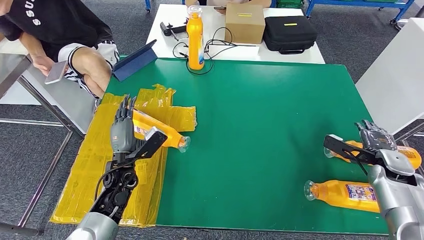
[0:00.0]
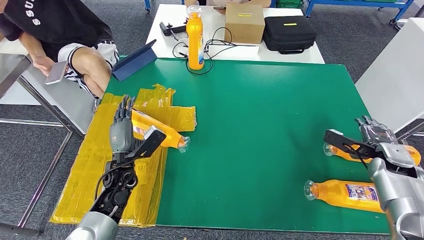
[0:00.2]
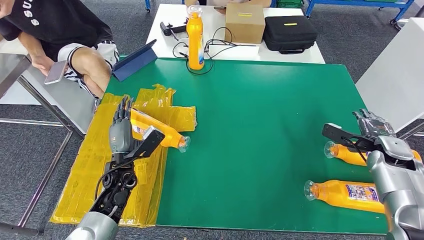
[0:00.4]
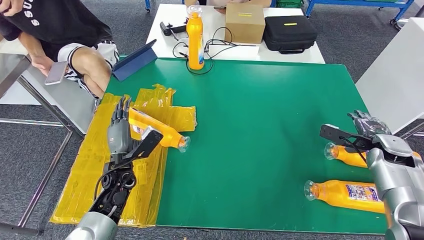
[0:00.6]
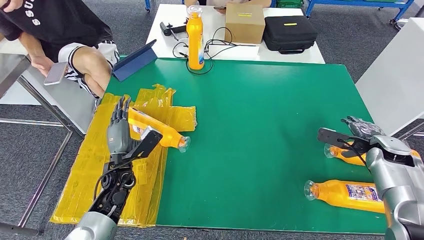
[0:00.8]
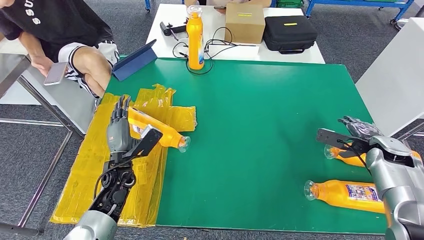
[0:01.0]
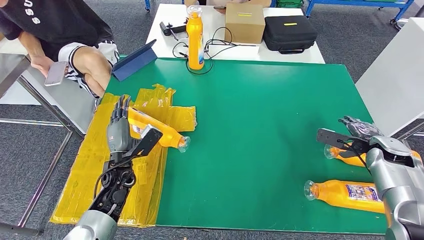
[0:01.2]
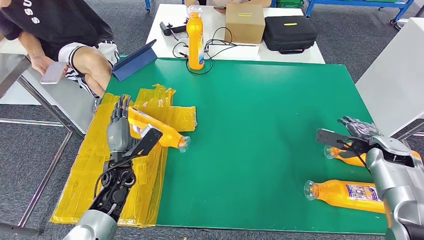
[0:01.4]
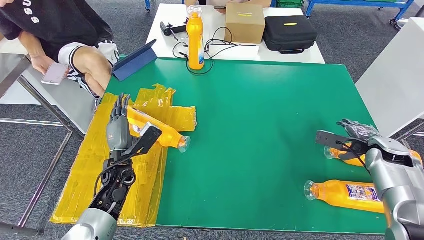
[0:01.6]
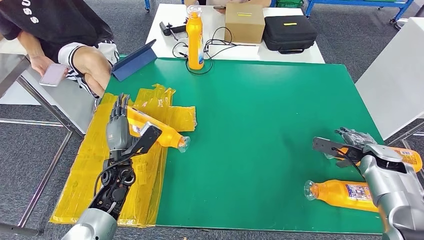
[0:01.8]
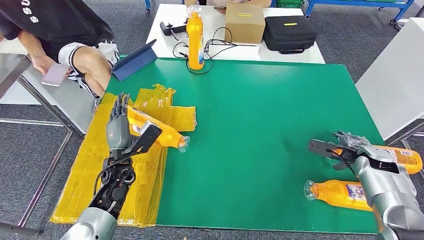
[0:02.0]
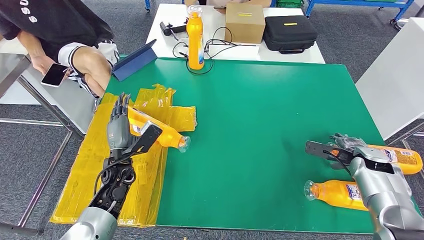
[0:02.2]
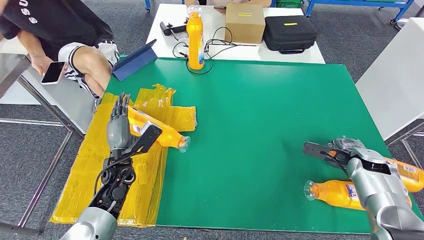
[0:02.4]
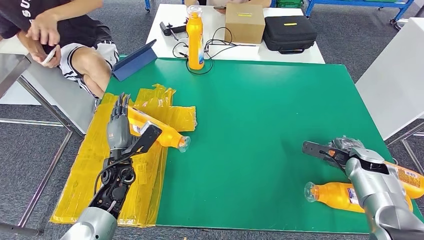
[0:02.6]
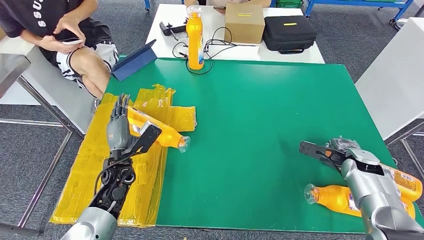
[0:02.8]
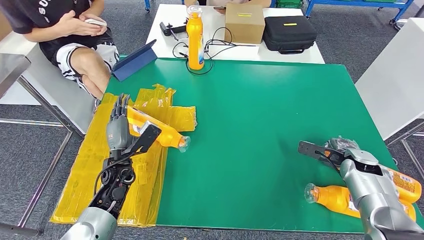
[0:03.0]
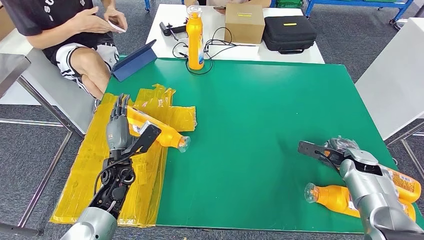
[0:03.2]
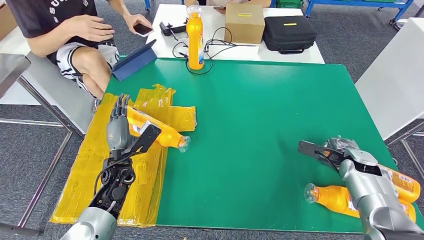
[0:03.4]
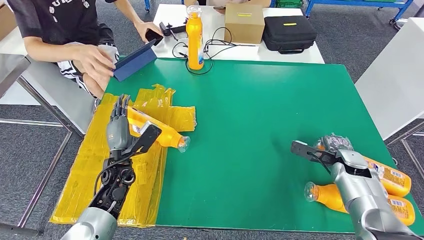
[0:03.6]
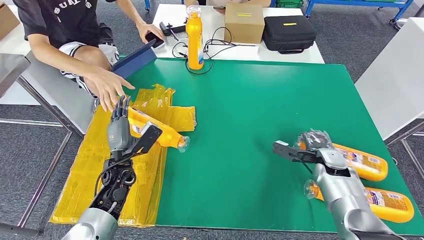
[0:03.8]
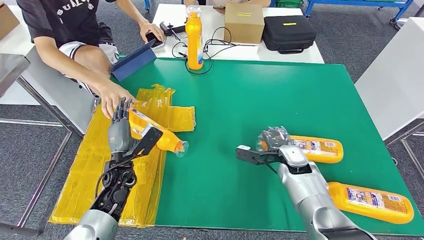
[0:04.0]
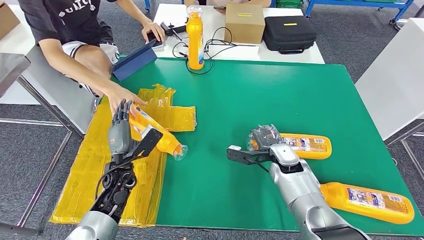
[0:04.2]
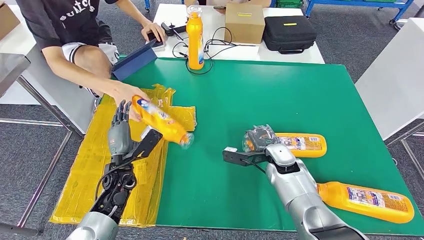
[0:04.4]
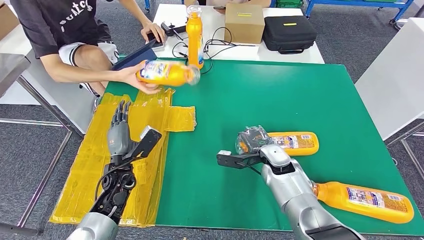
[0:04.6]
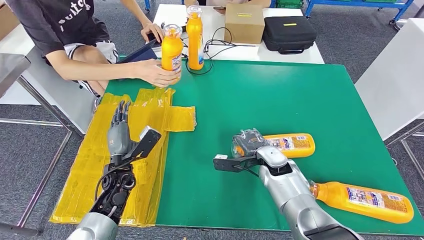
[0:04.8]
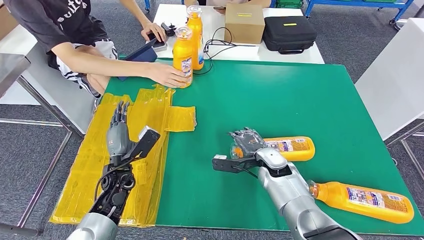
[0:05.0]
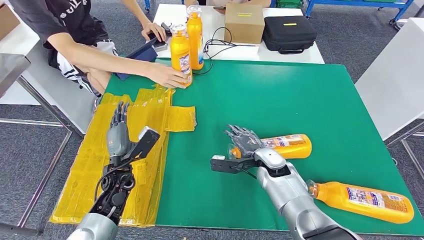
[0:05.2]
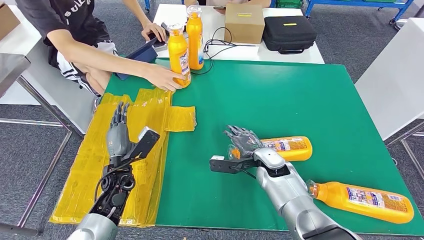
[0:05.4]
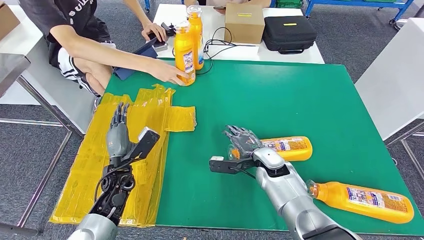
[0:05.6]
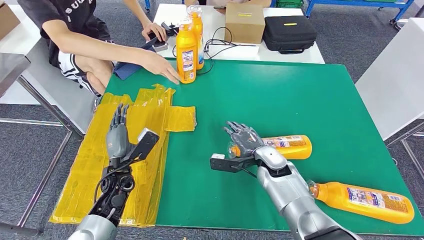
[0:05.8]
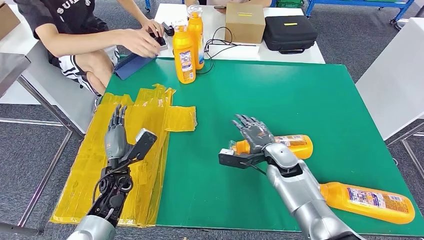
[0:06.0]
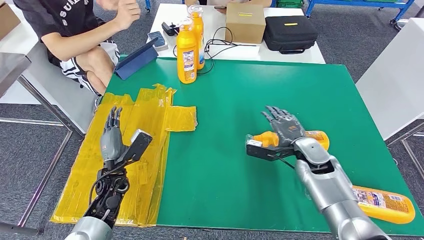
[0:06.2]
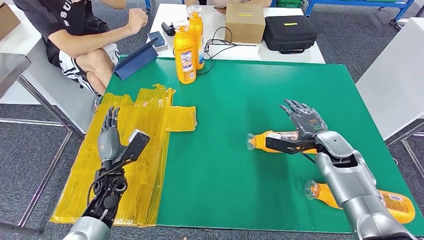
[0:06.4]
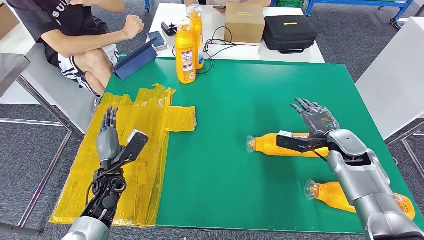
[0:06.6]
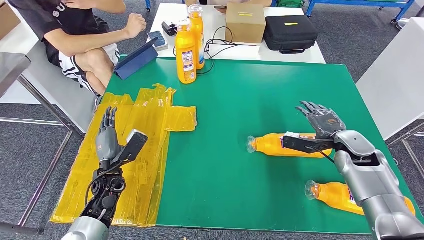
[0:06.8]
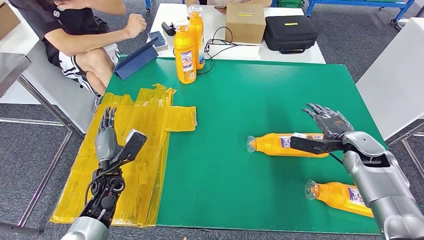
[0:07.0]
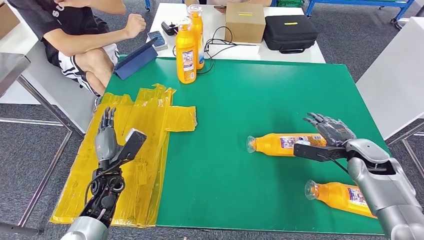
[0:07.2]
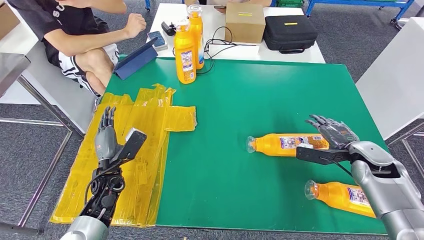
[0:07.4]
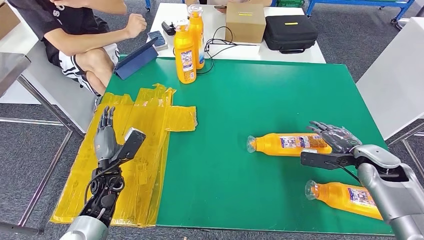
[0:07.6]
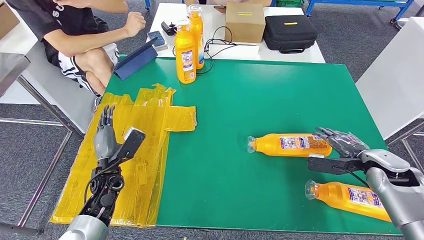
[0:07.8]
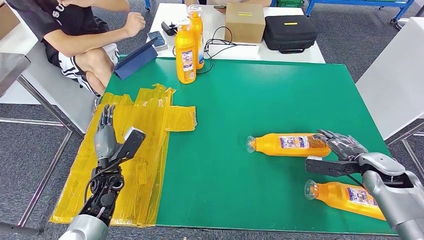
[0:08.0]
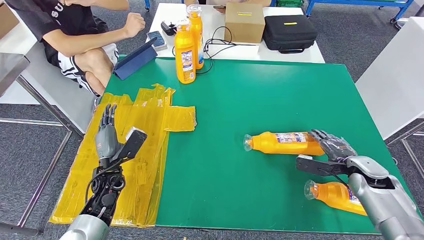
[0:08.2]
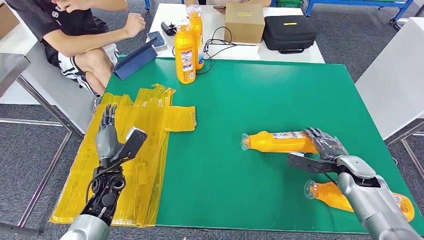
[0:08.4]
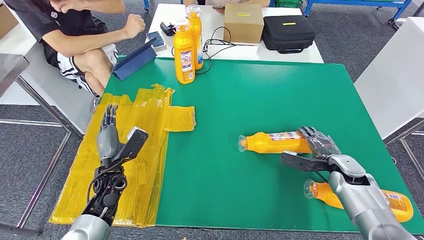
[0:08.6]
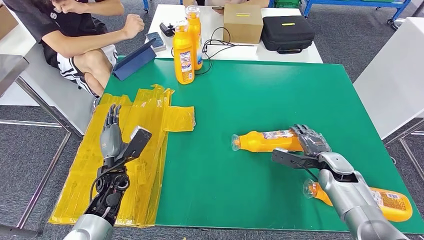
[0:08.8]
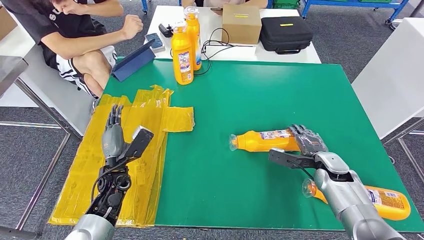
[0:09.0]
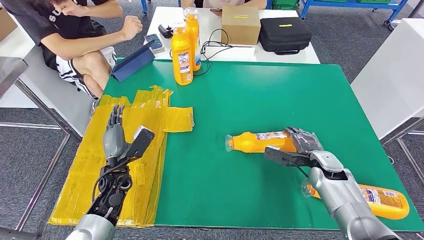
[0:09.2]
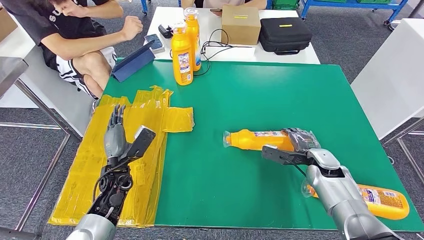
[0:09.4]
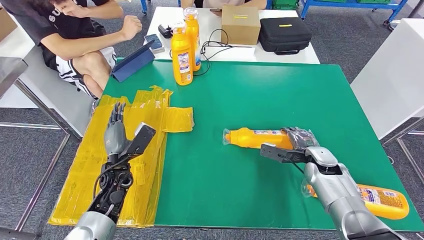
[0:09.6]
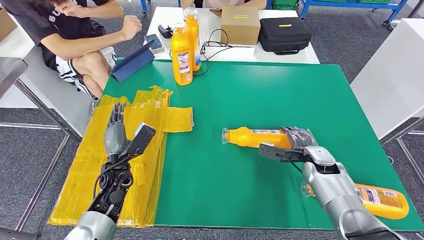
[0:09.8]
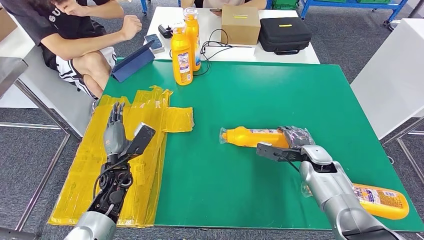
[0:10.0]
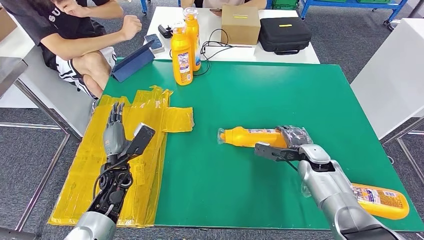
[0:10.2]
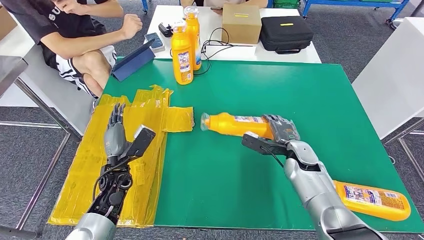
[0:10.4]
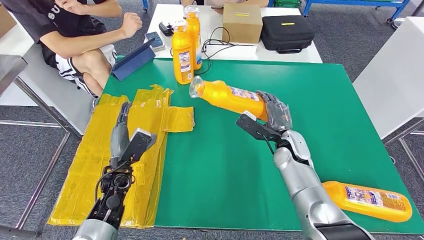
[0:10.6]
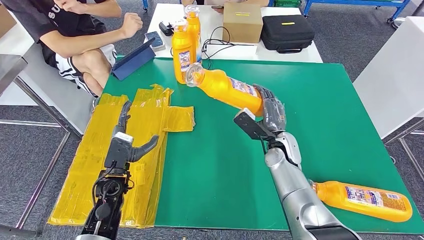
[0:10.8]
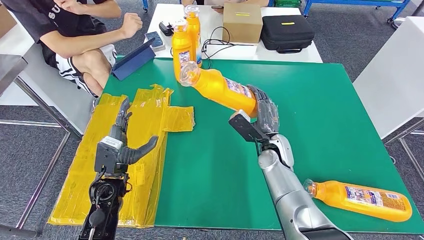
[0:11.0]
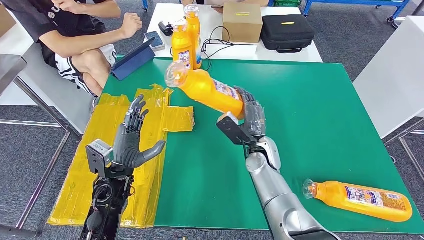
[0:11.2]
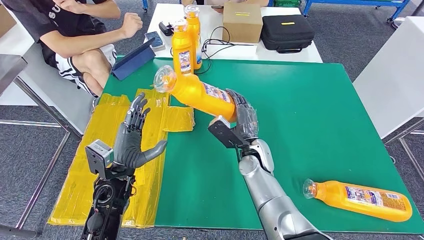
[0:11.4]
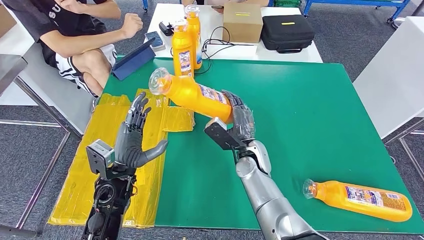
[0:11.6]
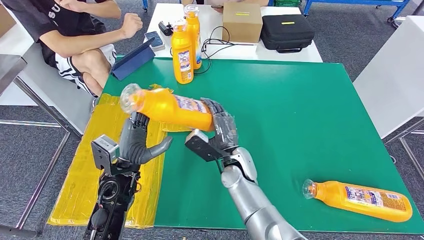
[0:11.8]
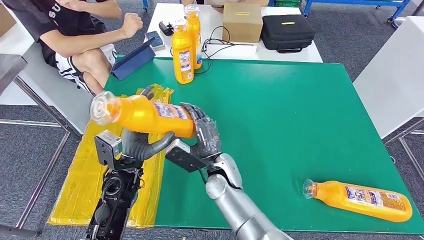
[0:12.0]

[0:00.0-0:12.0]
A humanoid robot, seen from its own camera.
Step, 0:07.0 to 0:11.0: Pick up the fast-moving consumer goods bottle from the table.
0:00.0 to 0:01.6: The hands make only small movements.
0:01.6 to 0:03.0: The right hand moves to the left, about 5 cm.
0:04.4 to 0:06.0: The hands make only small movements.
0:09.0 to 0:10.4: The right hand travels to the left by roughly 10 cm.

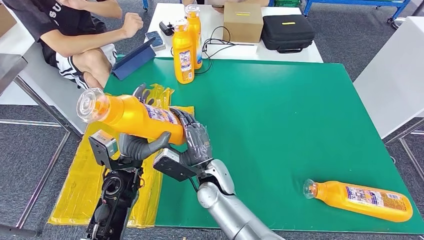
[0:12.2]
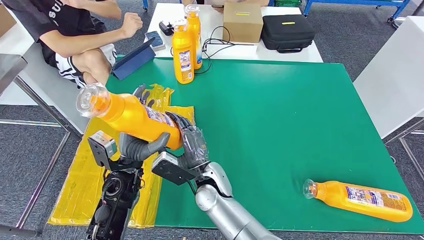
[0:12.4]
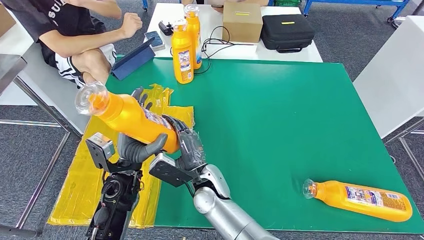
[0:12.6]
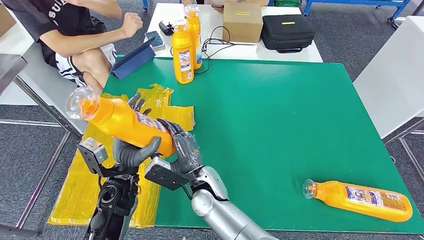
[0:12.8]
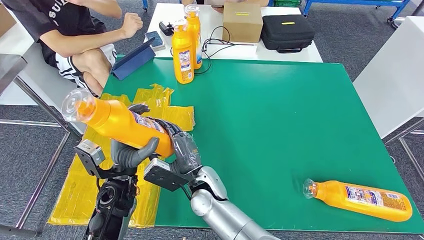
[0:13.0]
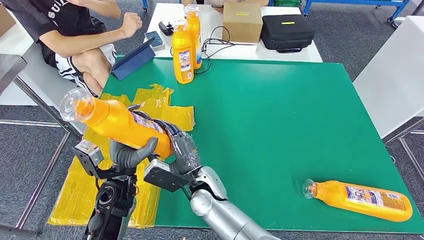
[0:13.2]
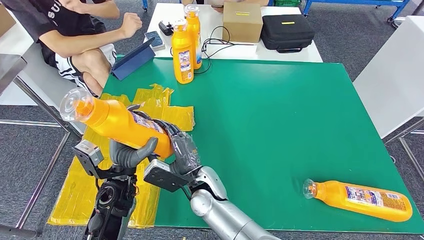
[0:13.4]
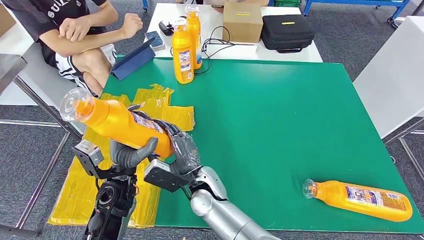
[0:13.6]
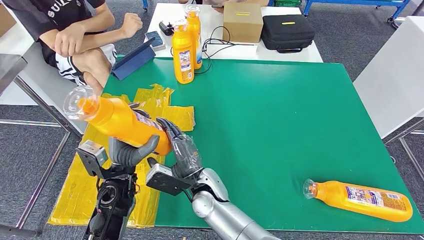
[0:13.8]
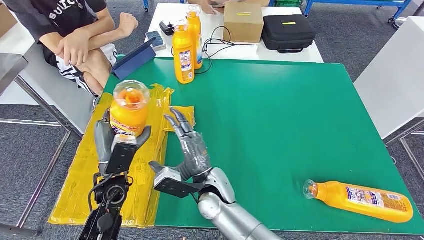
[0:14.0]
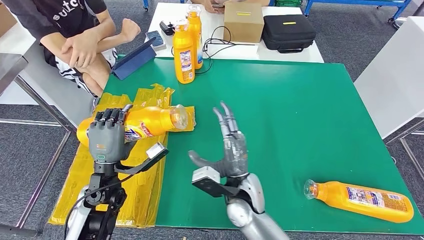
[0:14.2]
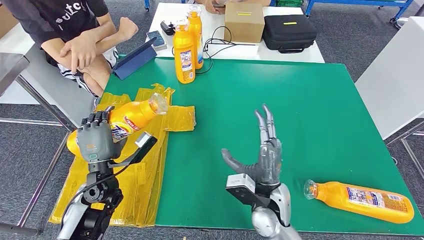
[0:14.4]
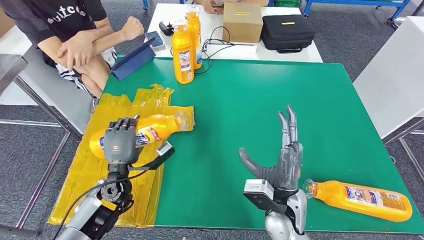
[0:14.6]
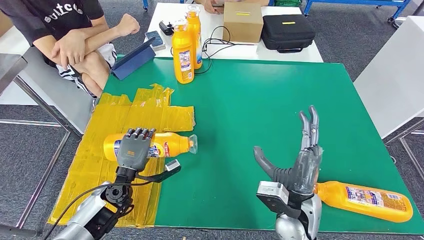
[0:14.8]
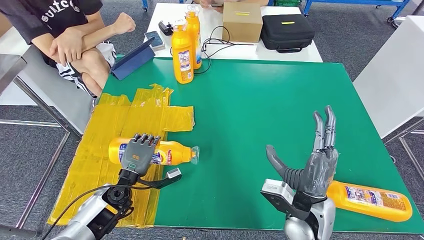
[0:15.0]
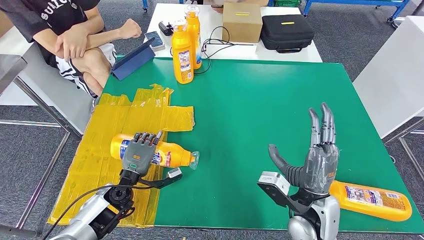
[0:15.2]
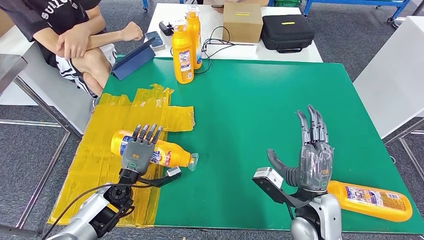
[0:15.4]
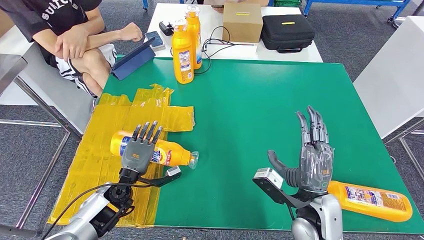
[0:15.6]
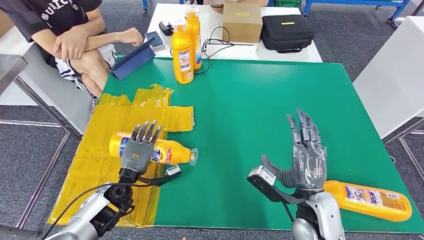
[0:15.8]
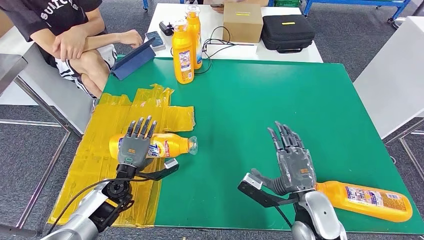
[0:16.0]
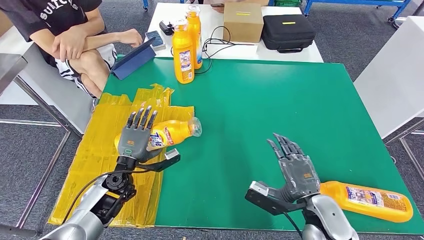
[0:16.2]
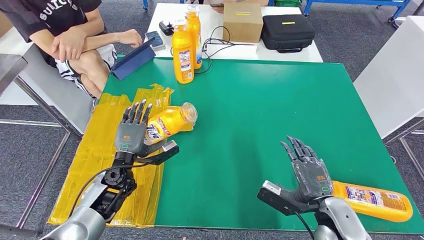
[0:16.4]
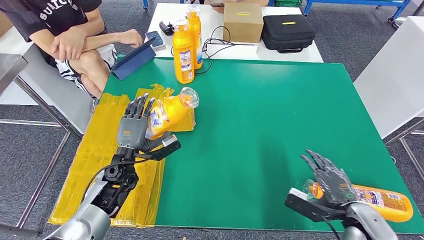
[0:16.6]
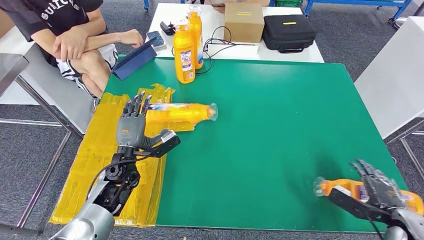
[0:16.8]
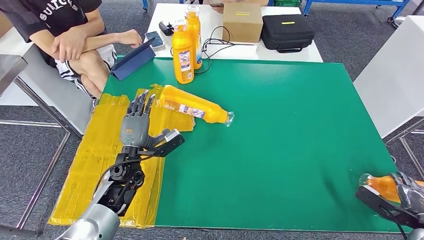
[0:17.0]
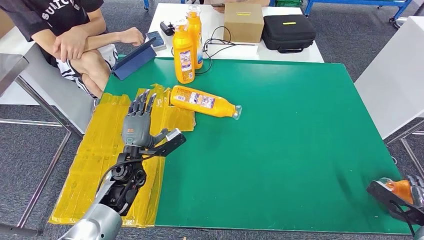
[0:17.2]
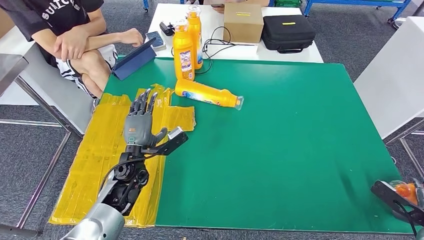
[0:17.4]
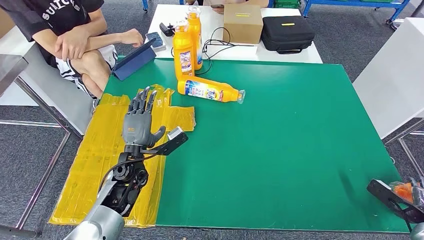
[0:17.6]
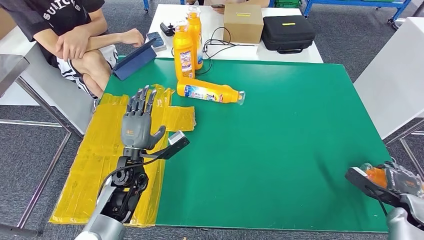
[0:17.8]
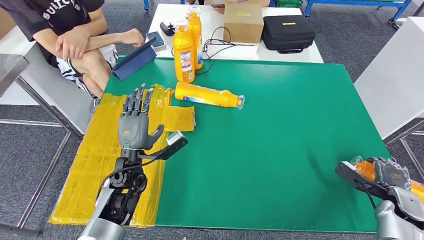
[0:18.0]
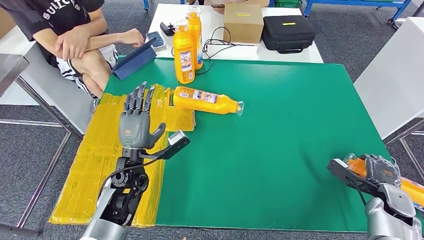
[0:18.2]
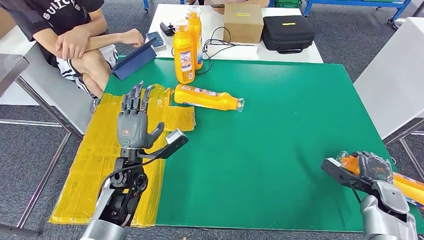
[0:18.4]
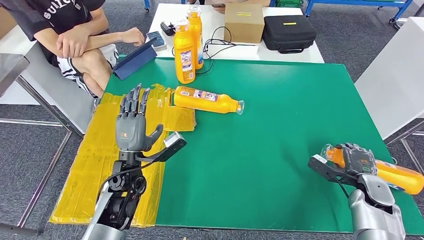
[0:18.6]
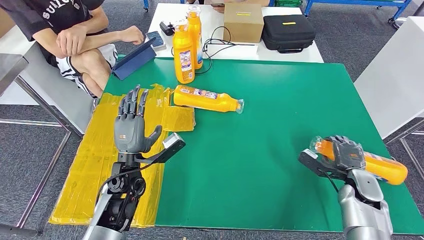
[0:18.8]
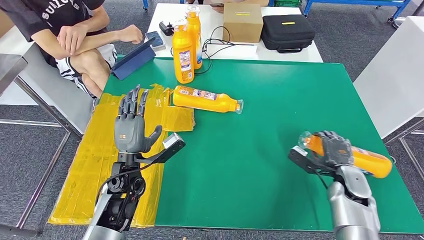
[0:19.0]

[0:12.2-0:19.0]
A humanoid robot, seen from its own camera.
Step, 0:12.2 to 0:17.0: Flip the fast-moving consumer goods bottle to the front side.
0:12.2 to 0:13.6: There are only small adjustments of the hands.
0:17.6 to 0:19.0: The right hand heads to the left and forward, covering roughly 20 cm.
